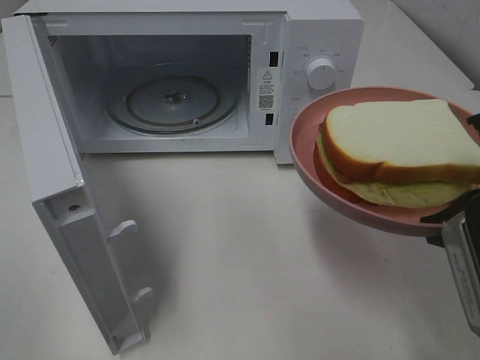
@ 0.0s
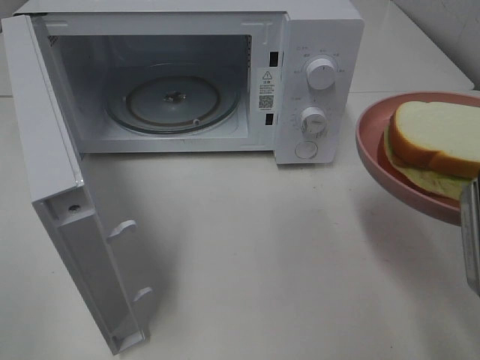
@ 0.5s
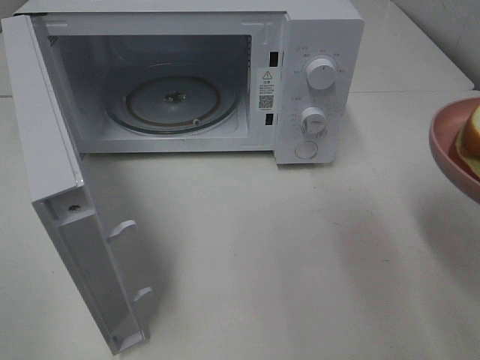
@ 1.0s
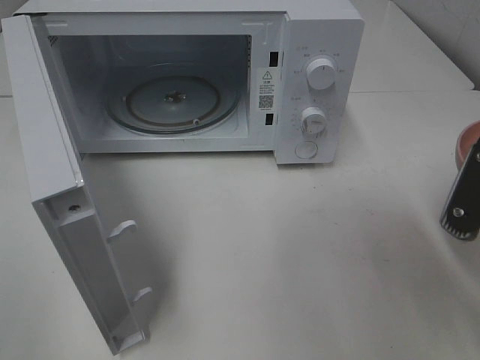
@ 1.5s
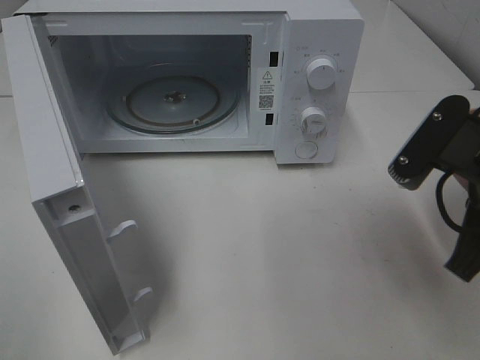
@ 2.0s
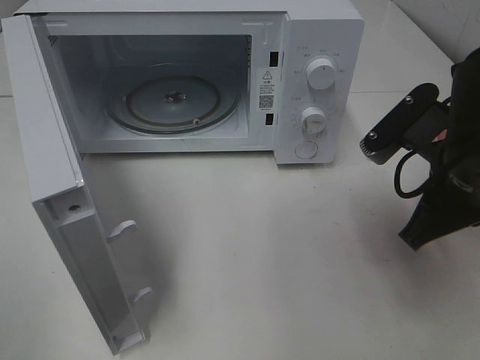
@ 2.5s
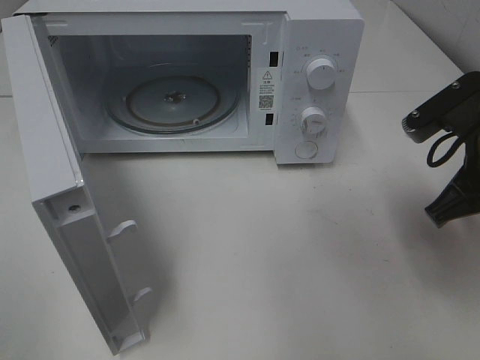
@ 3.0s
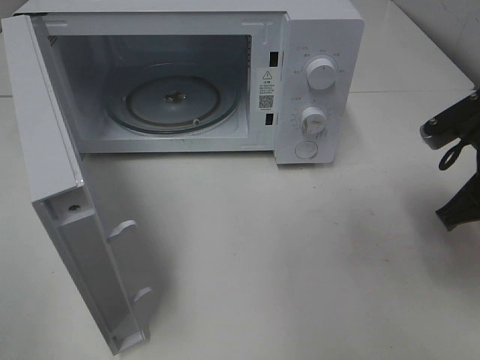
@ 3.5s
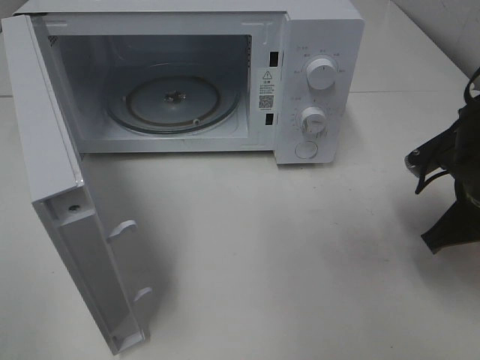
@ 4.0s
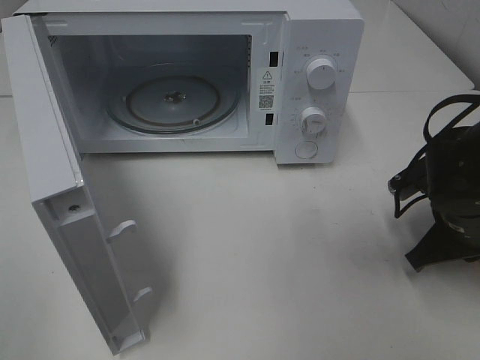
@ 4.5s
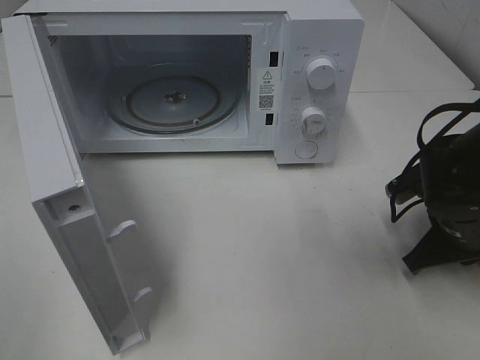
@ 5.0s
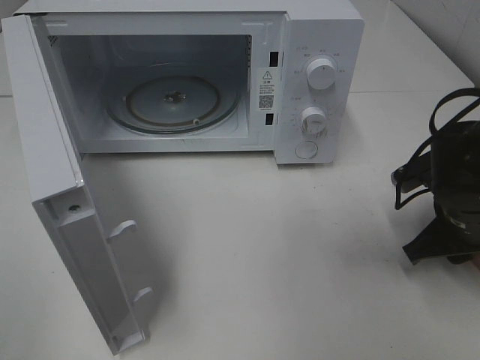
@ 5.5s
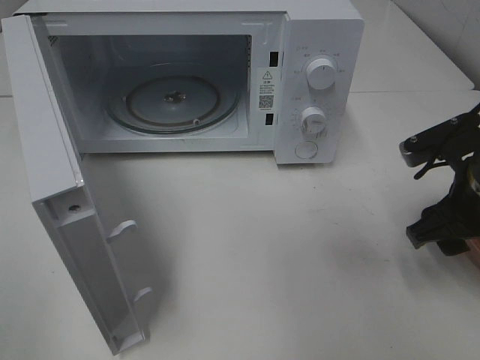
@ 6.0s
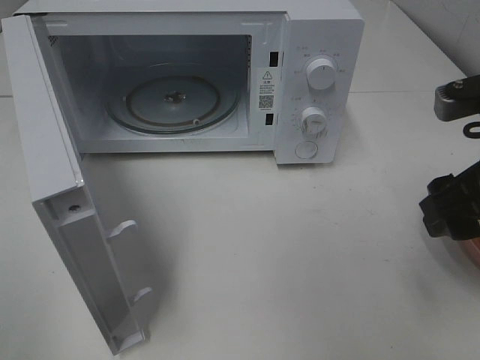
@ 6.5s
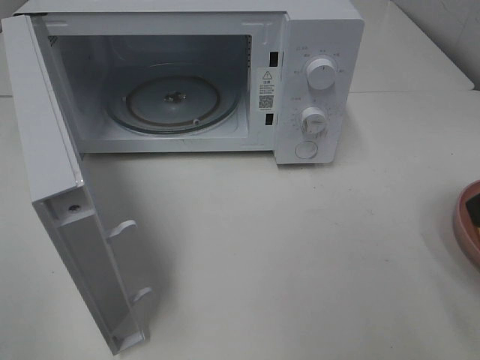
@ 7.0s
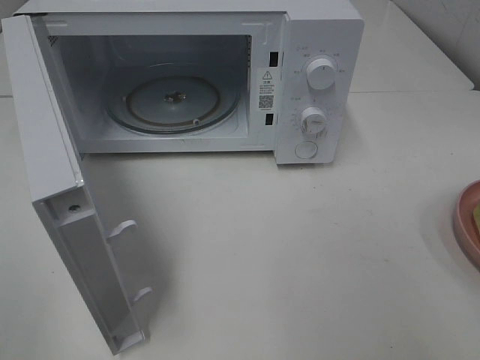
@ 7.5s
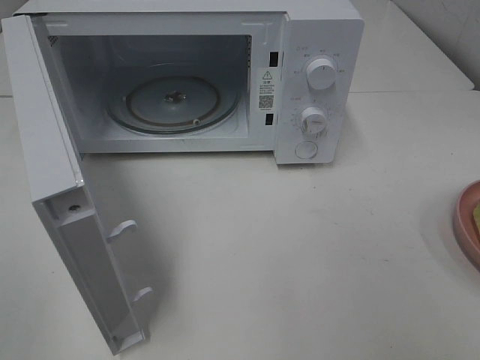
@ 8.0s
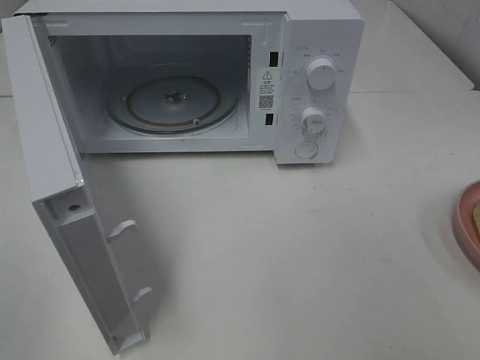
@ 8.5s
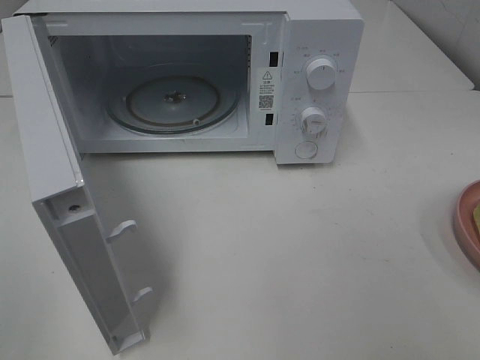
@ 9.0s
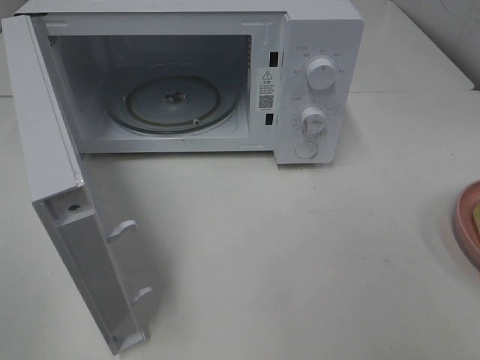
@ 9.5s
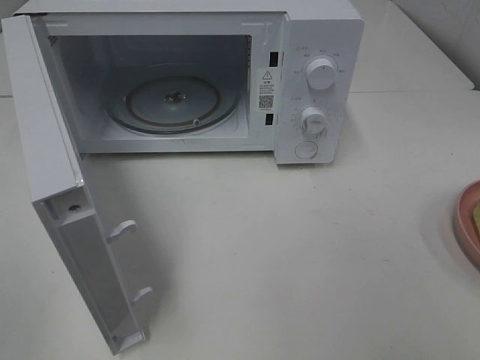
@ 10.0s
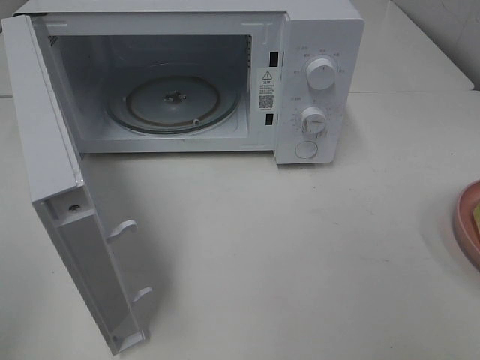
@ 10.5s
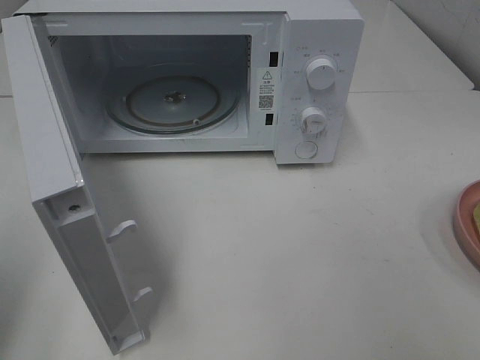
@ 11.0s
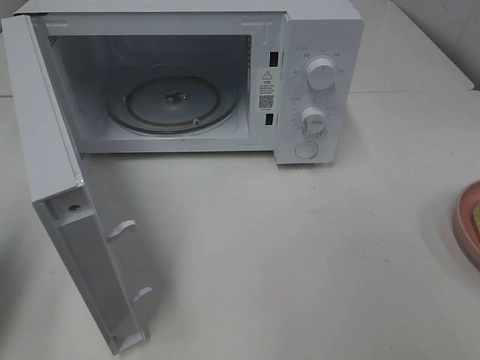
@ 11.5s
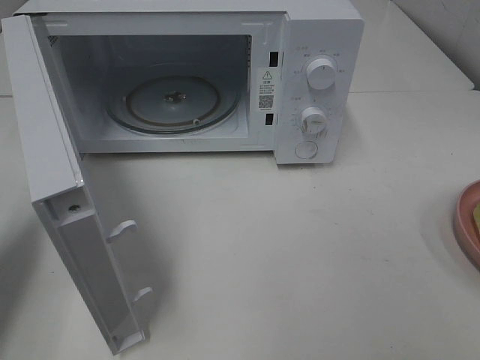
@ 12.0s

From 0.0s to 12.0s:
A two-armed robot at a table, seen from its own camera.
Task of the whole recording: Heat Sandwich.
Step, from 0.0s to 5.5s: Right hand: place the plate on the table.
From 0.0s to 2.0s: The right gripper heads forward, covering some 5 cm.
From 2.0s to 4.0s: The right gripper travels downward and forward by some 10 cm.
From 4.0s to 6.0s: The right gripper opens.
From 6.0s to 8.0s: The right gripper heads backward and upward, covering roughly 25 cm.
From 10.0s to 12.0s: The left gripper is displaced forward by some 20 cm, and closes up.

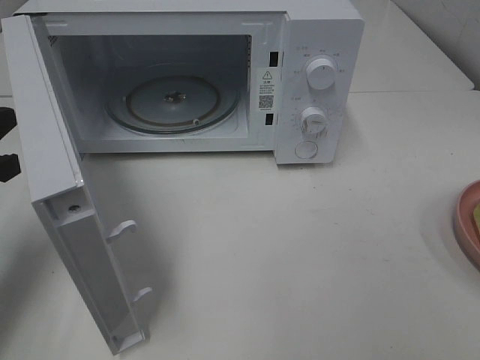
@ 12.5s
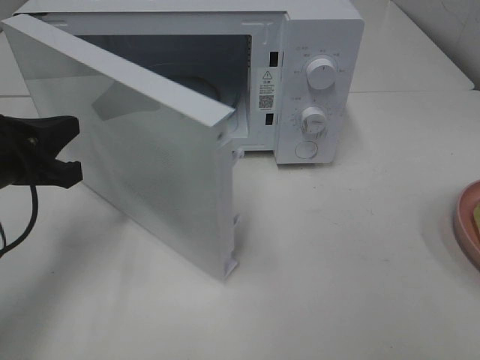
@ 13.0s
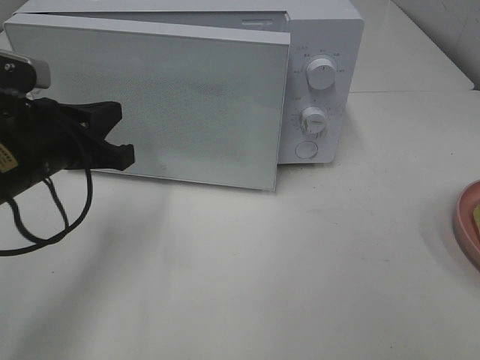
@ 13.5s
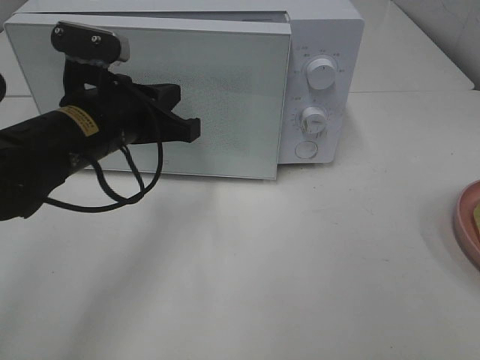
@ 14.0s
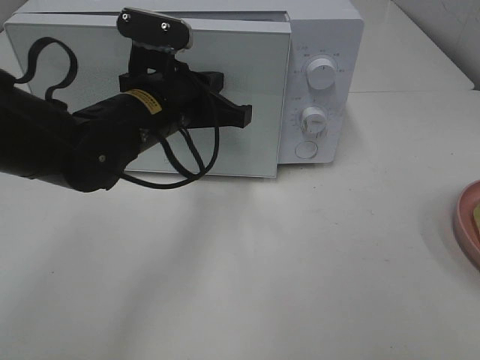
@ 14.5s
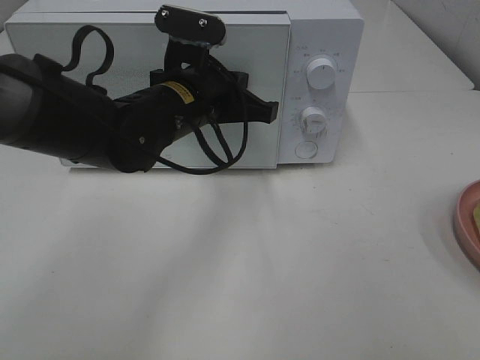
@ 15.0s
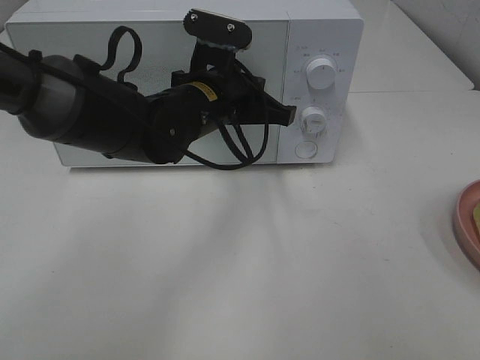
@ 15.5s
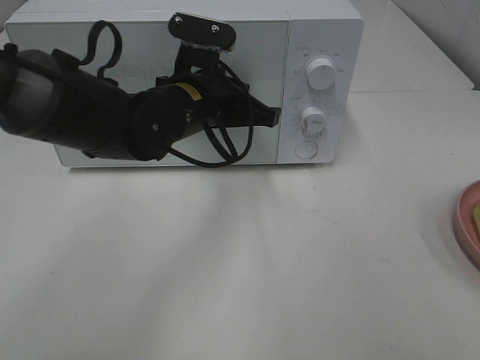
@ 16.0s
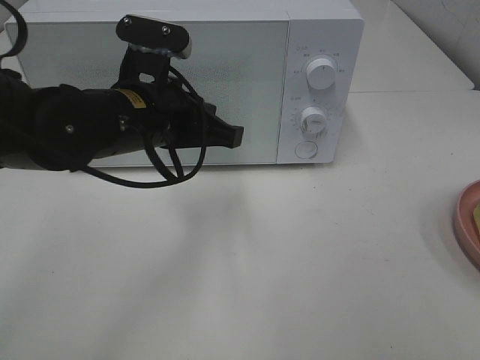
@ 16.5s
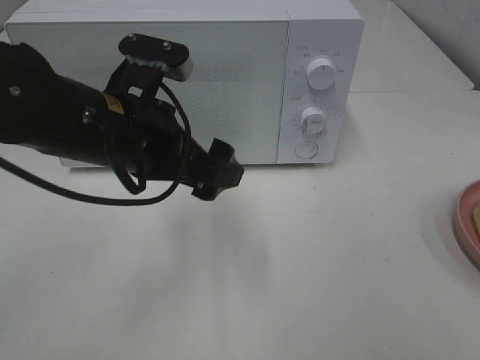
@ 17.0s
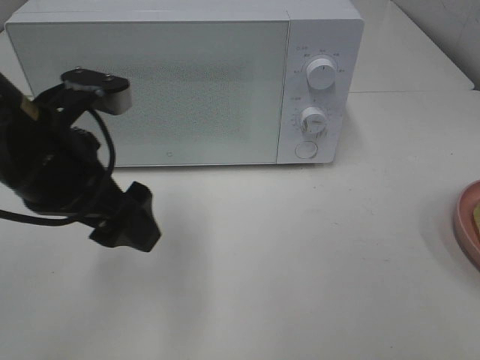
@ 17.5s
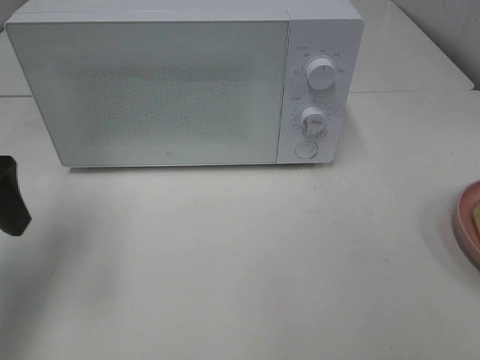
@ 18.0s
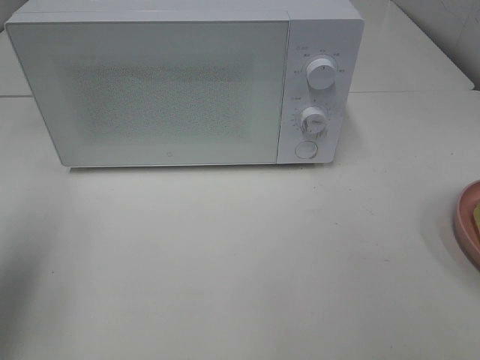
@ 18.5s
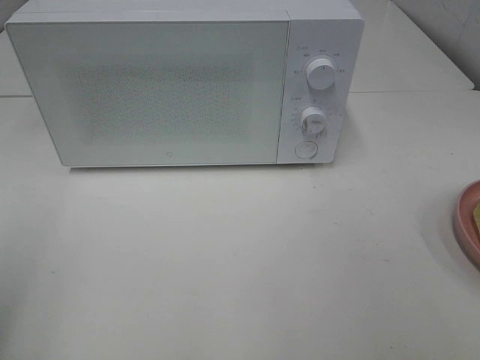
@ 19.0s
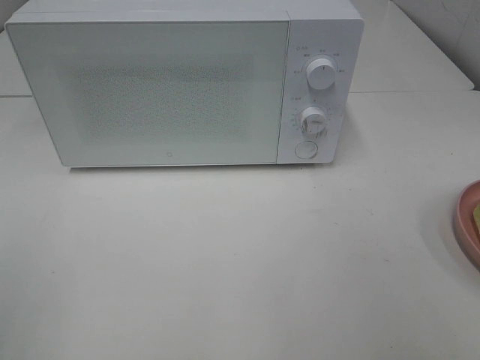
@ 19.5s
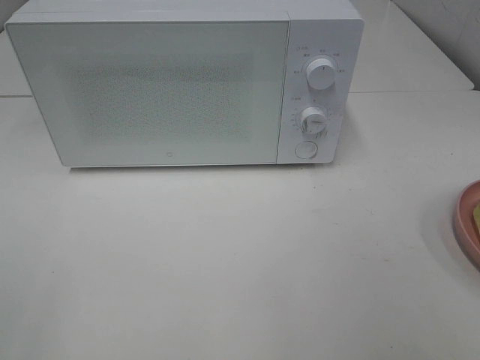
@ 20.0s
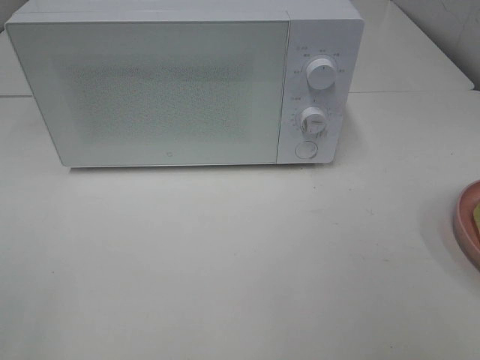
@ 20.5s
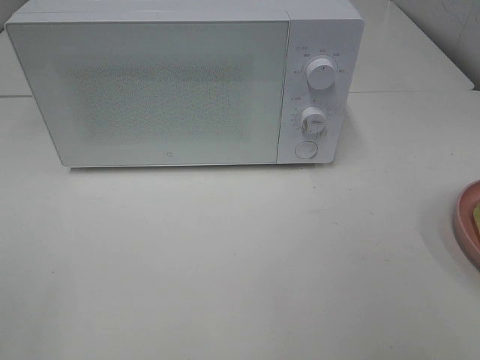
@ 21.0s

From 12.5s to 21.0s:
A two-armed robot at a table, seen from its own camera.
Task of the whole recording: Heat Sandwich.
Step, from 12.5s to 16.5s: Left hand: close the microwave door.
From 12.5s to 14.5s: The left gripper travels to the right by approximately 20 cm.
From 14.5s to 16.5s: There are only small adjustments of the grippers.
From 16.5s to 19.0s: The left gripper is displaced to the left and backward by approximately 30 cm, and opens.

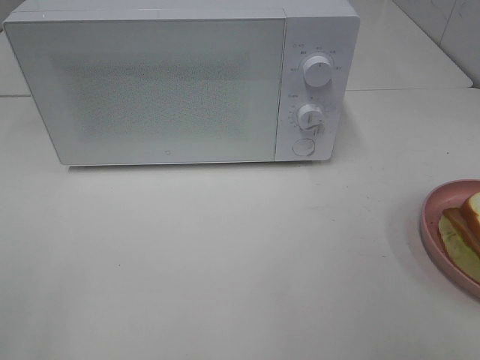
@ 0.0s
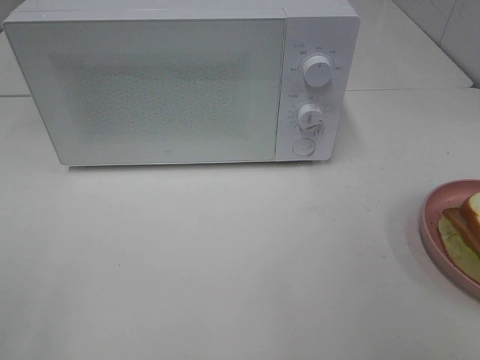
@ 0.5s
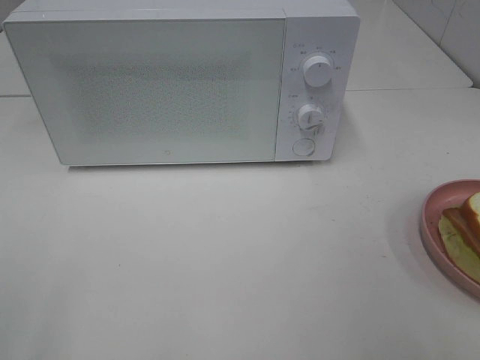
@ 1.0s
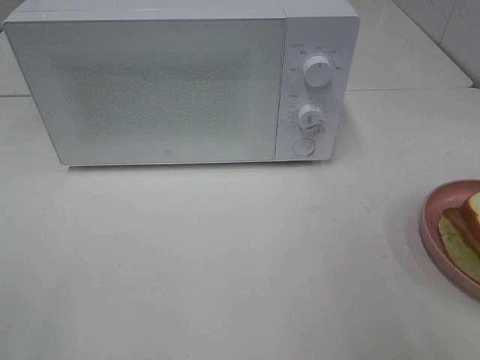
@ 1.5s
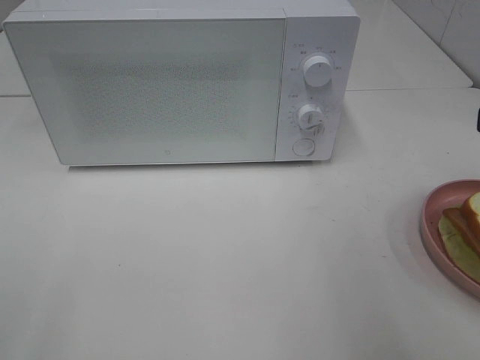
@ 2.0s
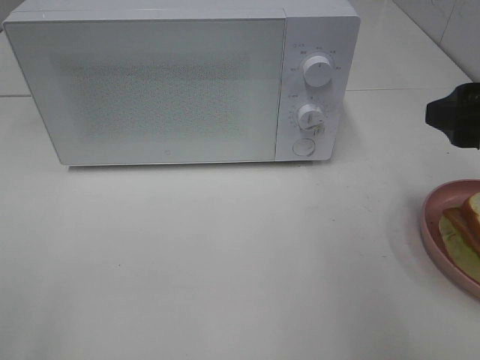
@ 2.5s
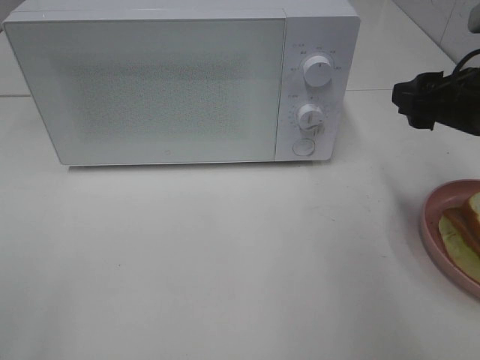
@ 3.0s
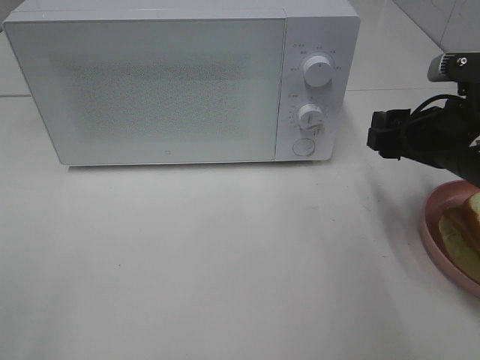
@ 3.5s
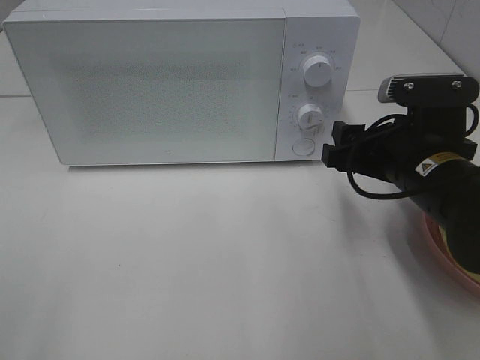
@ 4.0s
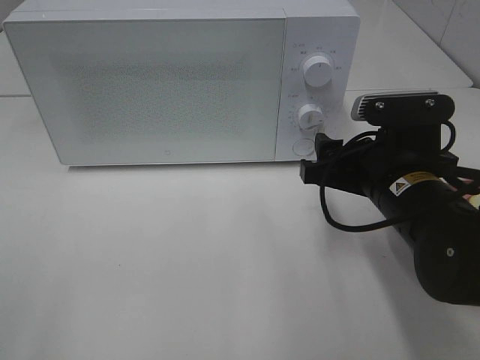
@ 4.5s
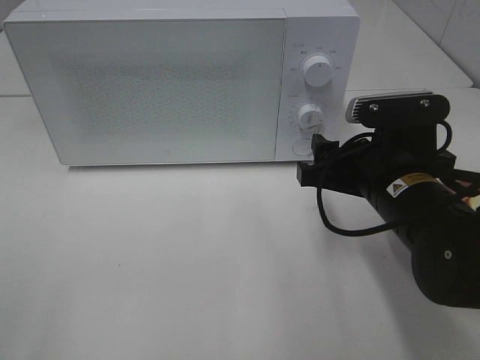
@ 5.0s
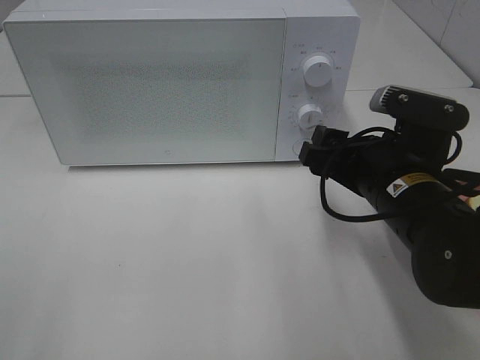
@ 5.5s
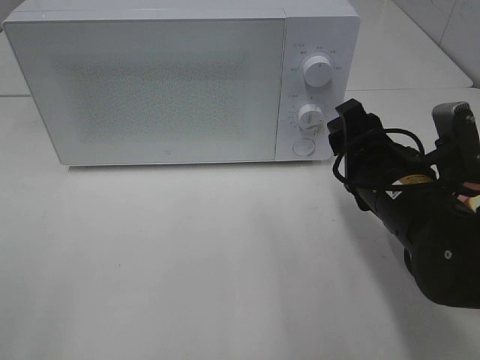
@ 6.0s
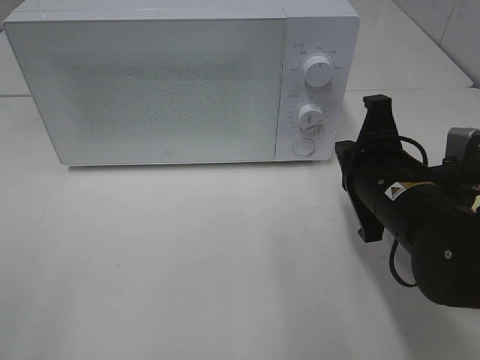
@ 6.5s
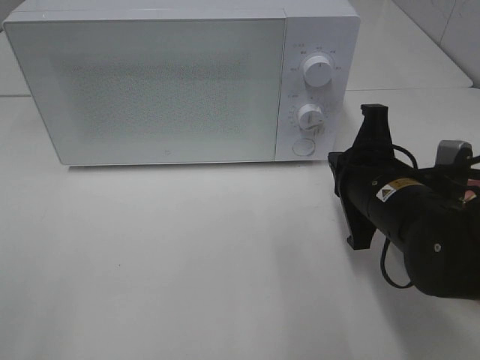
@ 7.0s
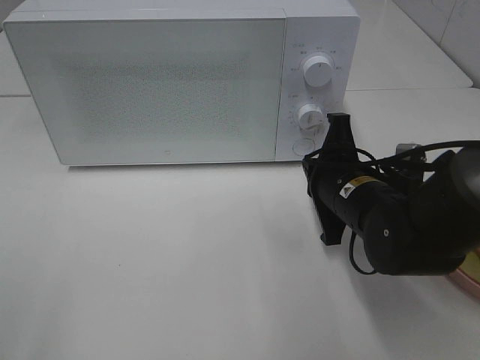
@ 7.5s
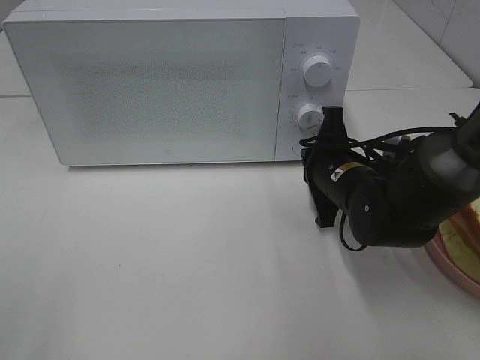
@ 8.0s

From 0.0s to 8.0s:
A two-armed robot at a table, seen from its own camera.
Task of the whole recording: Heat Sandwich.
From 2.0s to 4.0s: The right gripper heads downward, forward and to the left, covering approximately 20 cm.
From 6.0s to 8.0s: The right gripper moves forward and downward, some 10 cm, and closes its fingers.
